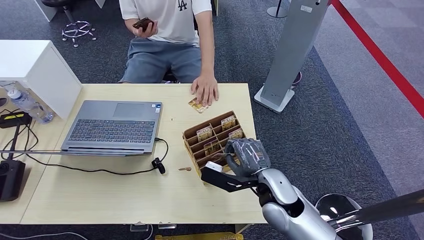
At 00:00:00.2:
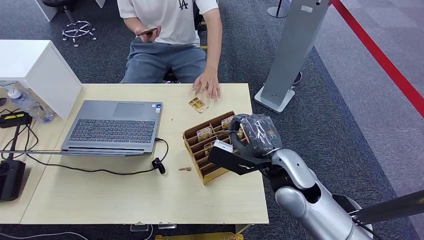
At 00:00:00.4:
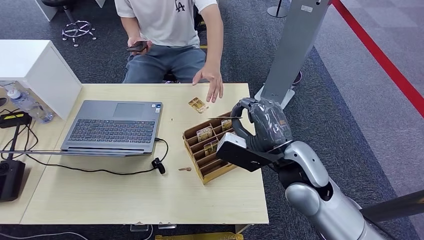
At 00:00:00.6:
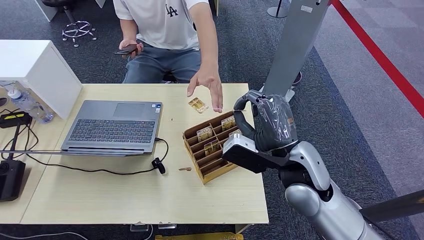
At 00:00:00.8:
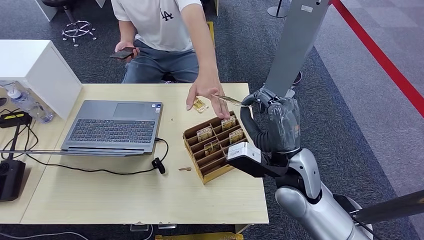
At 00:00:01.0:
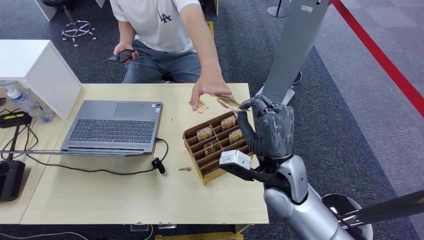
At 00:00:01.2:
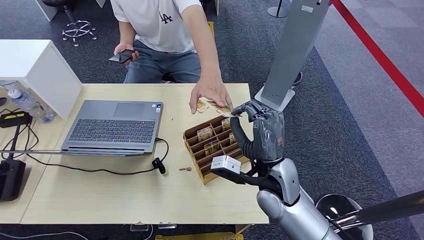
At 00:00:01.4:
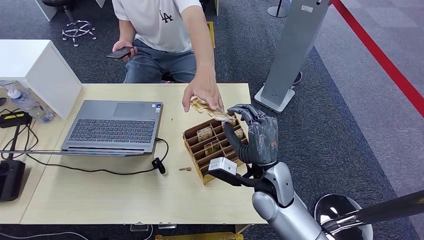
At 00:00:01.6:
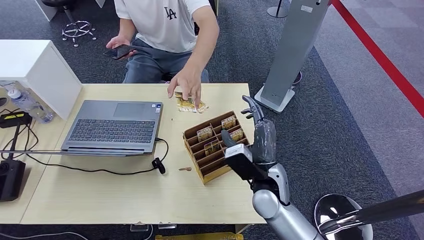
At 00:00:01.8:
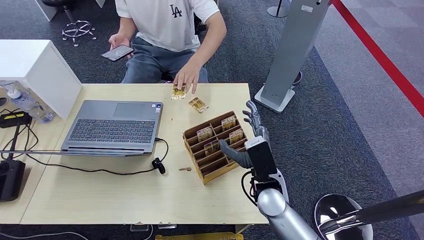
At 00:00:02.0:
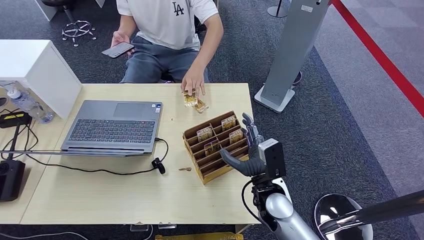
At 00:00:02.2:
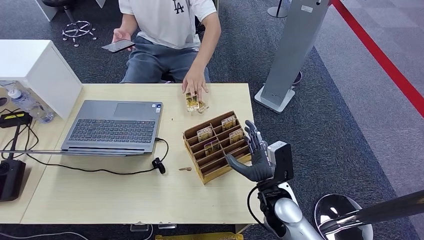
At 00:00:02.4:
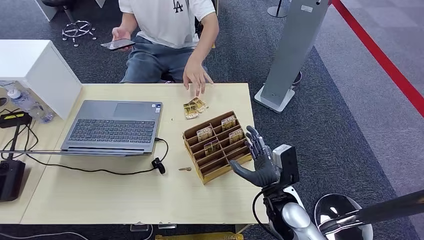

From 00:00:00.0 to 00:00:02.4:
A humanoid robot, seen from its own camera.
Task of the whole recording: Pick up the card and hand it over to the target person.
Step, from 00:00:00.6 to 00:00:02.2: Hand the key card to the target.
From 00:00:00.0 to 00:00:01.2: The right hand travels downward by roughly 10 cm.
From 00:00:01.2 to 00:00:02.4: The right hand heads to the right and backward, covering roughly 10 cm.
